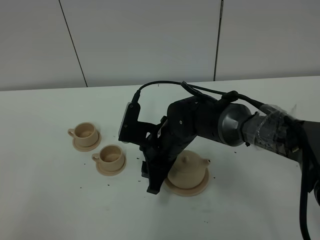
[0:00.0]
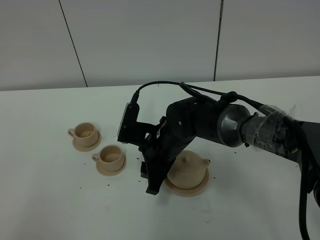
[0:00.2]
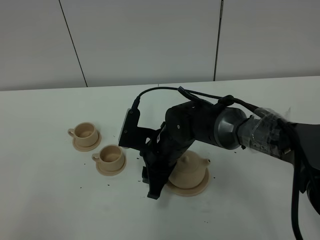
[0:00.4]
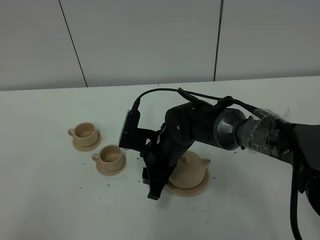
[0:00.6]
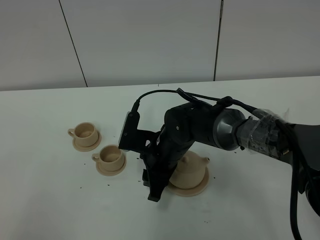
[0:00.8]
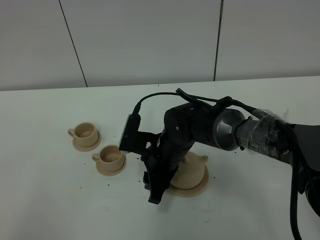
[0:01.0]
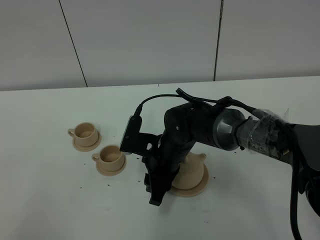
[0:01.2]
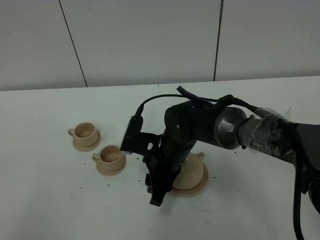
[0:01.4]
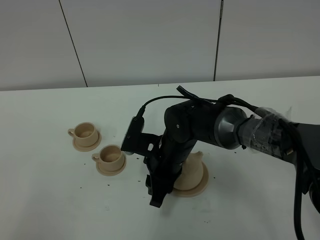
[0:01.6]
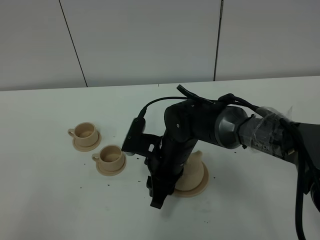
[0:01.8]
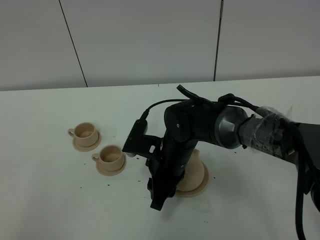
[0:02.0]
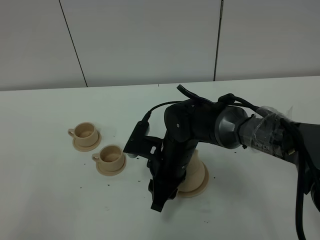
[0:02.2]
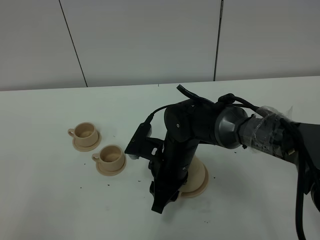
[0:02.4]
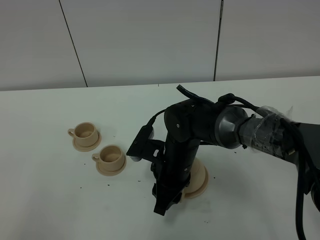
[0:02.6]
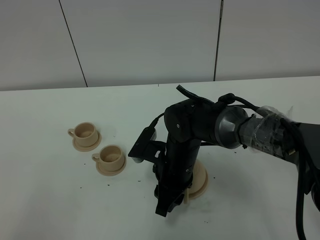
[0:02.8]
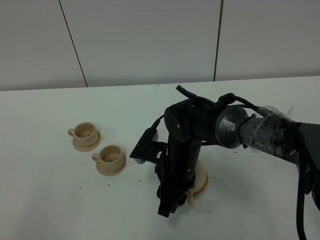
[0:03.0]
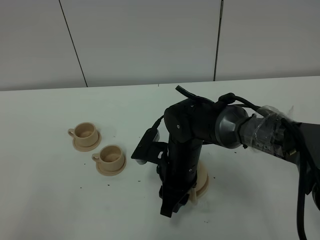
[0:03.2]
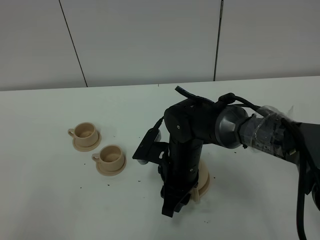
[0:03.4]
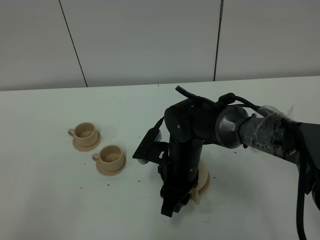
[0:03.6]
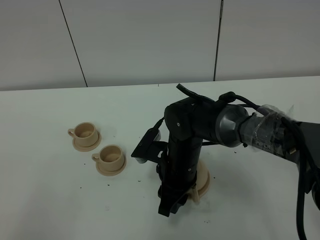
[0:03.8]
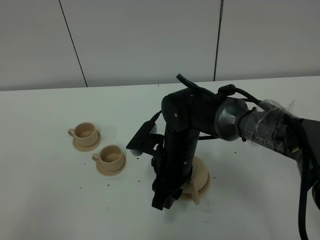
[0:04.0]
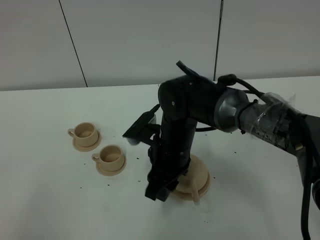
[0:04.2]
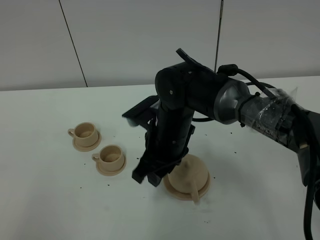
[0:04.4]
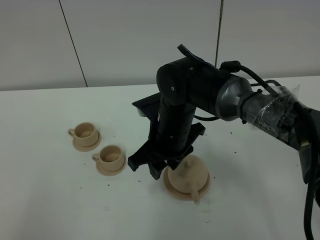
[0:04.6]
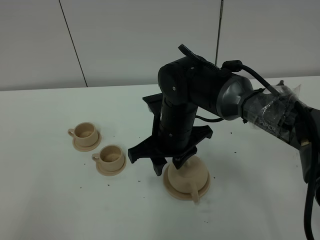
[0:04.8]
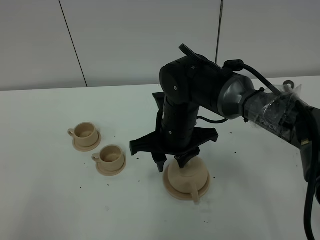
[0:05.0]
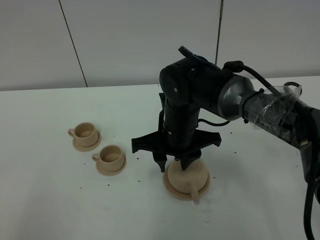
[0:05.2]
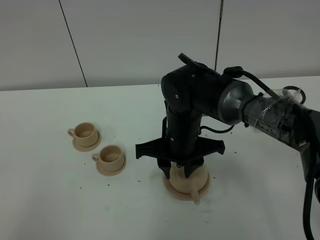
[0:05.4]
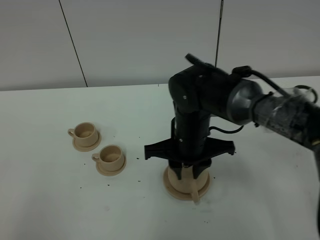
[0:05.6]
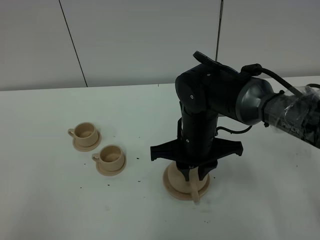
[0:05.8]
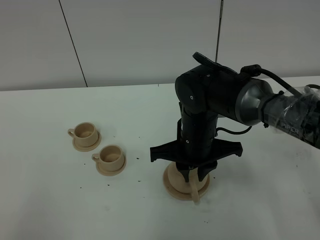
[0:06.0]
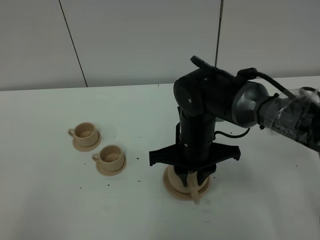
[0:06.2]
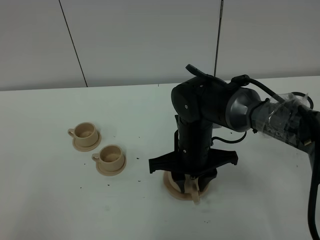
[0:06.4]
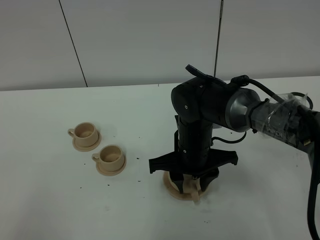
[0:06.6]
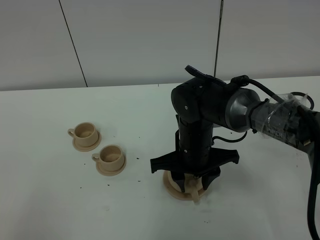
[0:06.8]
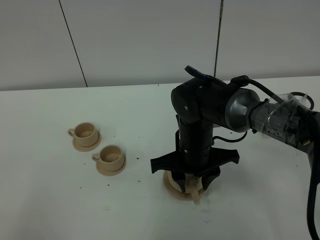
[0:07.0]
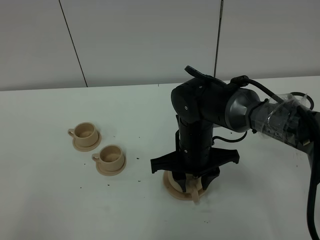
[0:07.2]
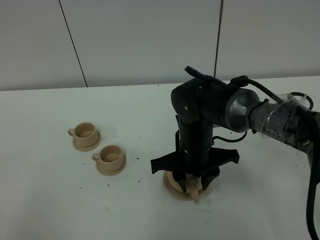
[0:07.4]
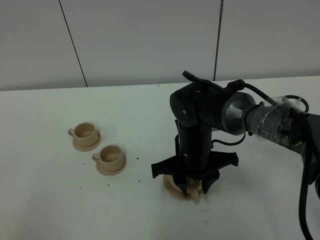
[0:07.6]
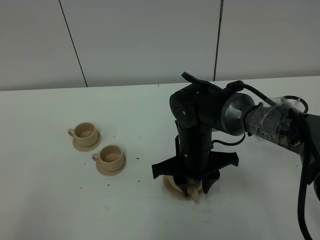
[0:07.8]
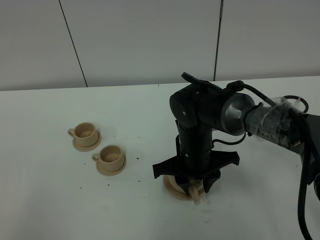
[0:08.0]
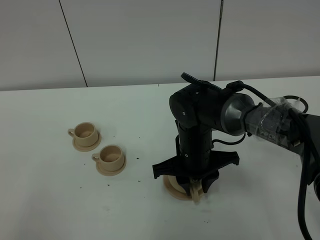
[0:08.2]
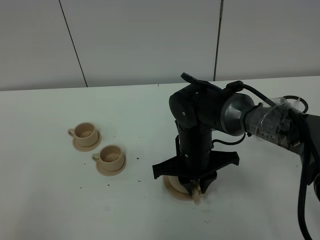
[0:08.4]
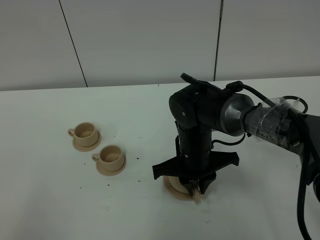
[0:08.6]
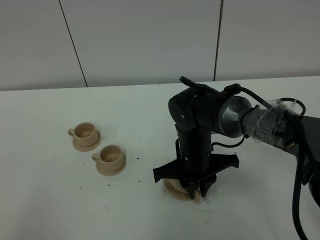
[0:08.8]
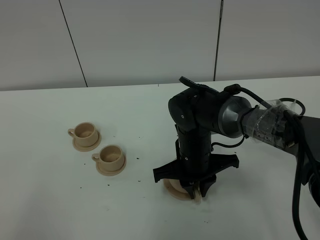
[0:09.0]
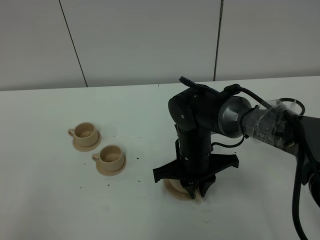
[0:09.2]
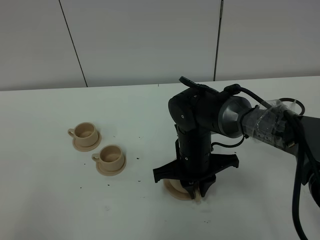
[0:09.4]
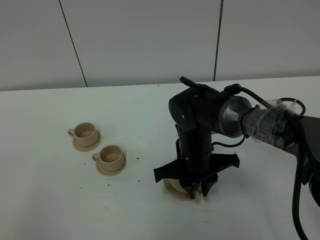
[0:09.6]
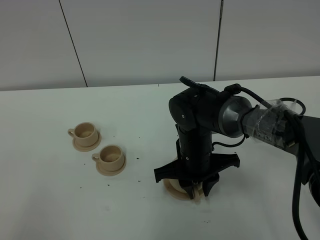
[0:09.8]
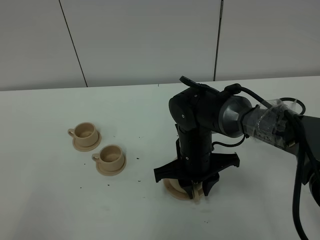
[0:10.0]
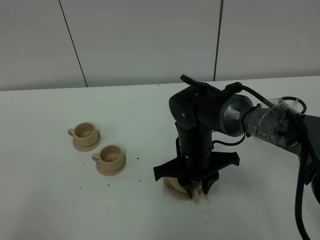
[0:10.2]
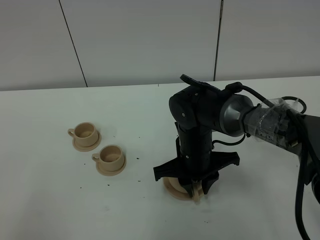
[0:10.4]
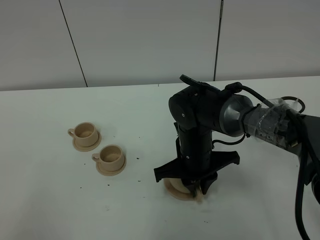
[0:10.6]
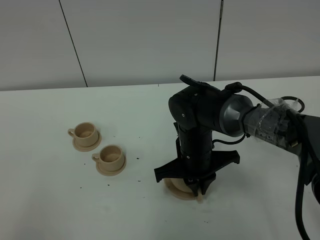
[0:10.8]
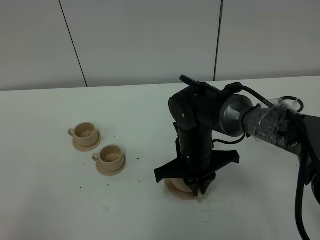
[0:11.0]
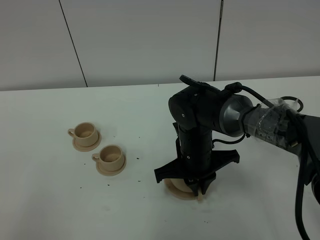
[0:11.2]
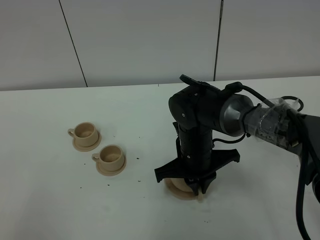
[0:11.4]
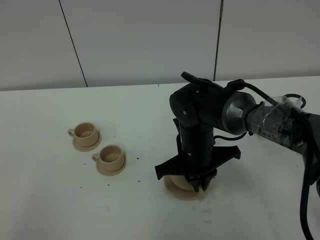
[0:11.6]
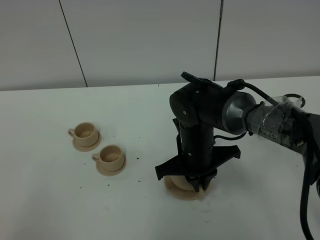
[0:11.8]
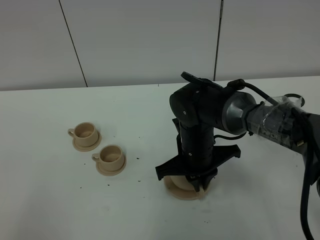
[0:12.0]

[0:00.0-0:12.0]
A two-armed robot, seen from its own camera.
Task of the whole recording: grasp the brown teapot and pour the tea into the two brown teacups one by one, put the brown teapot back in its original place.
0:00.0 to 0:01.6: There are only small adjustments of the grippers.
0:01.6 to 0:03.0: There are only small adjustments of the grippers.
0:03.0 to 0:04.4: The right gripper travels upward by some 5 cm.
0:04.4 to 0:06.0: The right gripper closes.
0:06.0 to 0:07.6: The right gripper opens its fingers.
0:07.6 to 0:09.0: The right gripper closes its fingers.
0:09.0 to 0:10.4: Neither gripper changes place.
0:10.4 to 0:12.0: The right gripper closes.

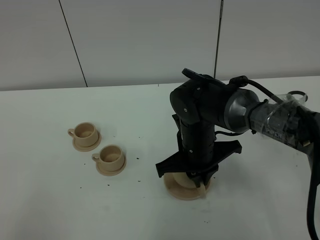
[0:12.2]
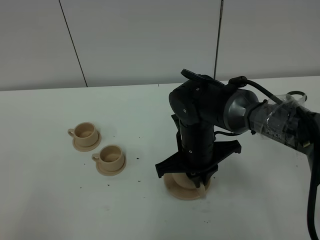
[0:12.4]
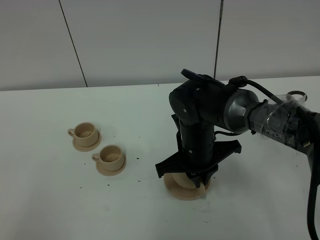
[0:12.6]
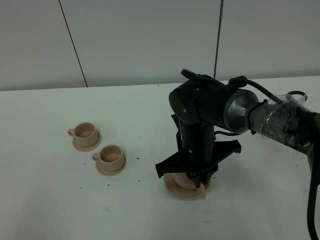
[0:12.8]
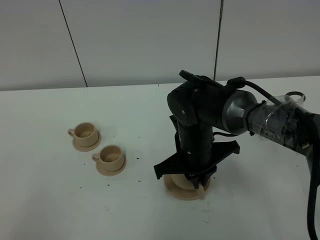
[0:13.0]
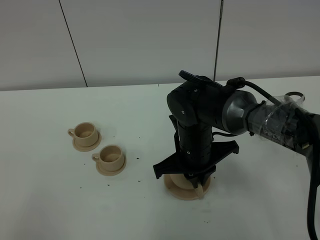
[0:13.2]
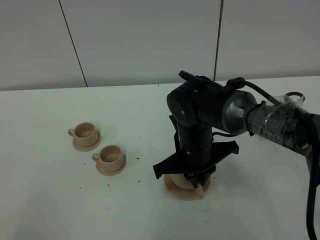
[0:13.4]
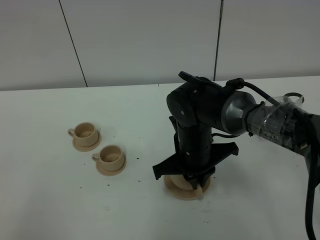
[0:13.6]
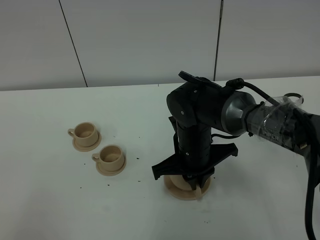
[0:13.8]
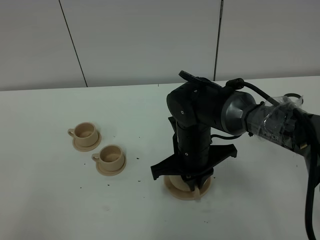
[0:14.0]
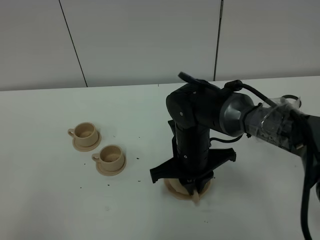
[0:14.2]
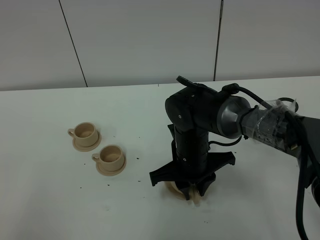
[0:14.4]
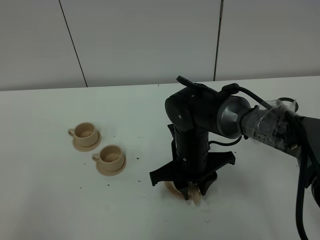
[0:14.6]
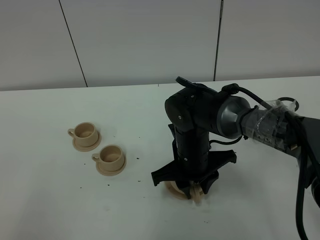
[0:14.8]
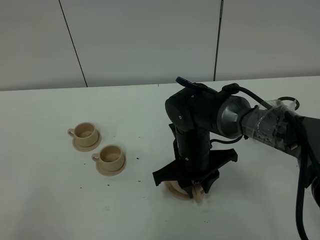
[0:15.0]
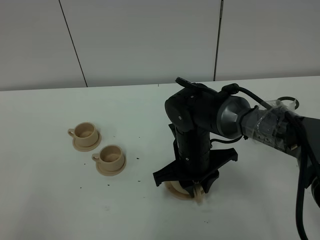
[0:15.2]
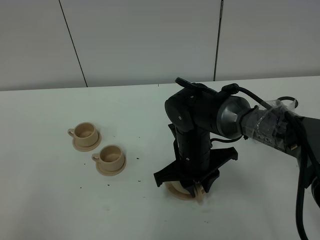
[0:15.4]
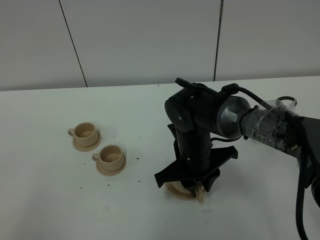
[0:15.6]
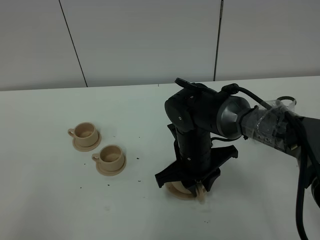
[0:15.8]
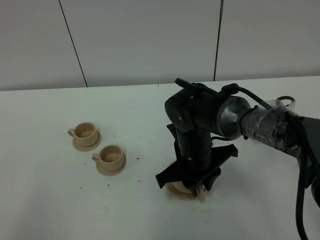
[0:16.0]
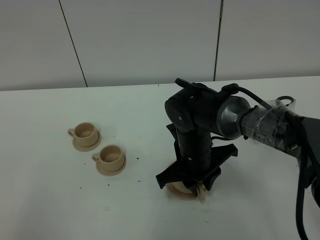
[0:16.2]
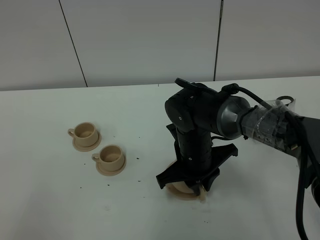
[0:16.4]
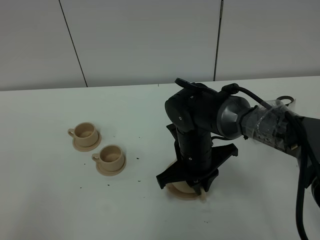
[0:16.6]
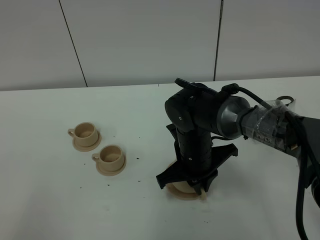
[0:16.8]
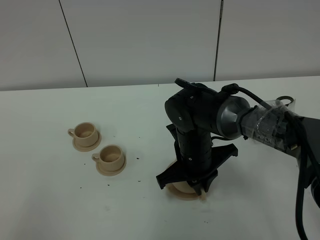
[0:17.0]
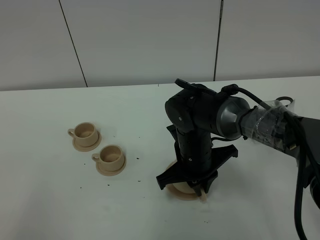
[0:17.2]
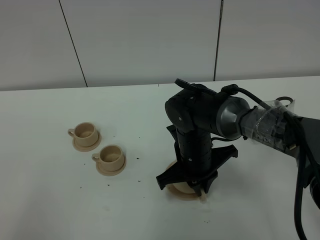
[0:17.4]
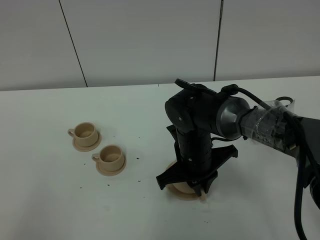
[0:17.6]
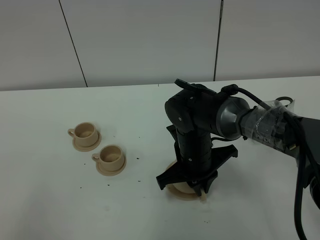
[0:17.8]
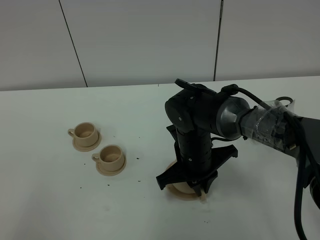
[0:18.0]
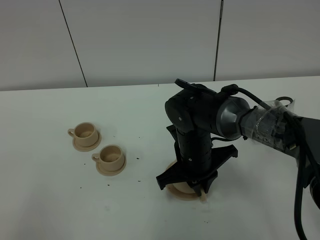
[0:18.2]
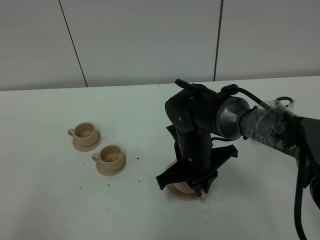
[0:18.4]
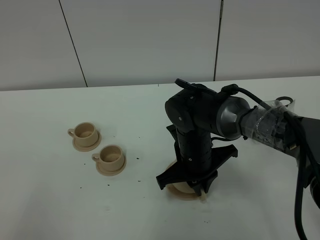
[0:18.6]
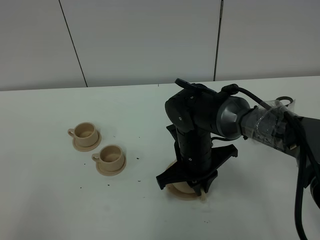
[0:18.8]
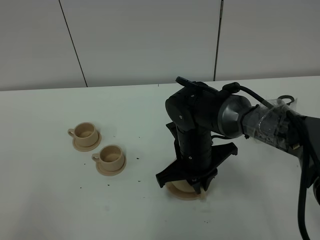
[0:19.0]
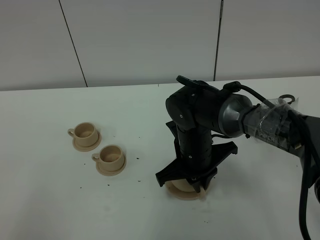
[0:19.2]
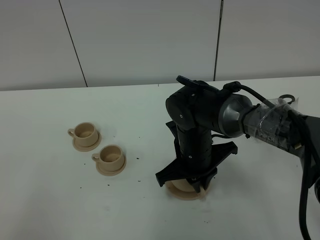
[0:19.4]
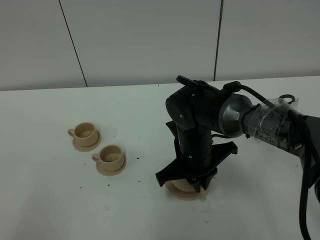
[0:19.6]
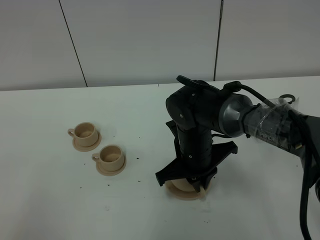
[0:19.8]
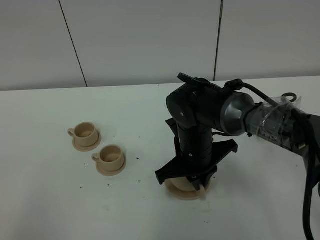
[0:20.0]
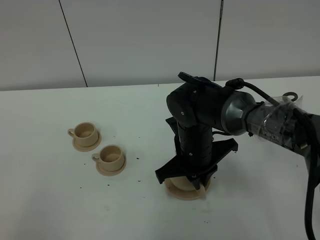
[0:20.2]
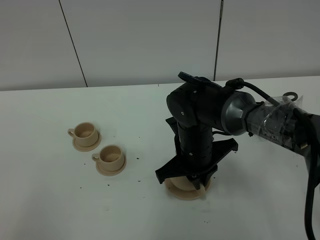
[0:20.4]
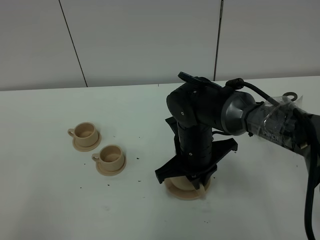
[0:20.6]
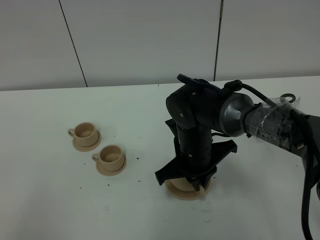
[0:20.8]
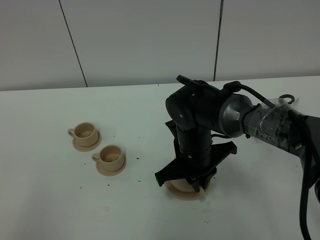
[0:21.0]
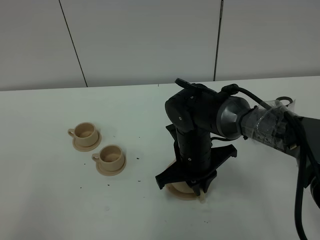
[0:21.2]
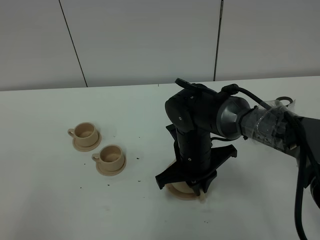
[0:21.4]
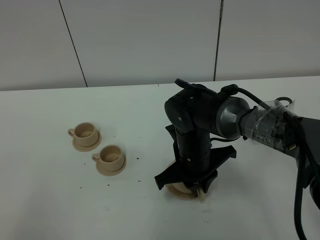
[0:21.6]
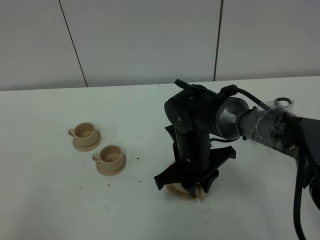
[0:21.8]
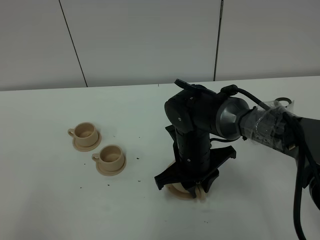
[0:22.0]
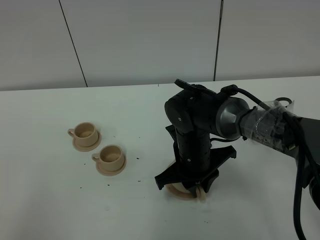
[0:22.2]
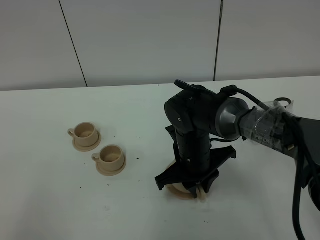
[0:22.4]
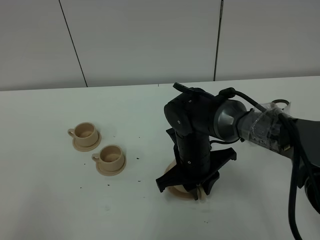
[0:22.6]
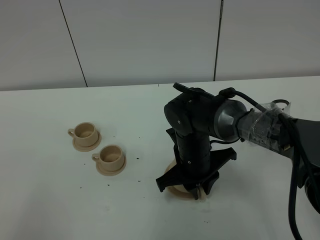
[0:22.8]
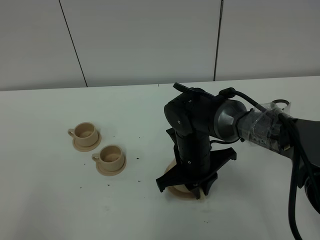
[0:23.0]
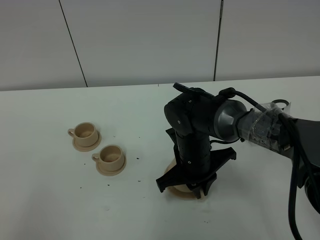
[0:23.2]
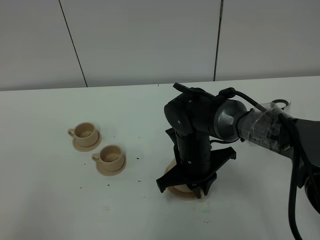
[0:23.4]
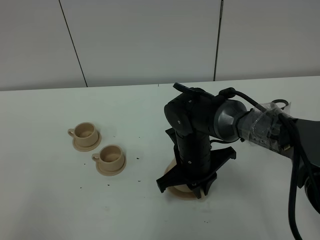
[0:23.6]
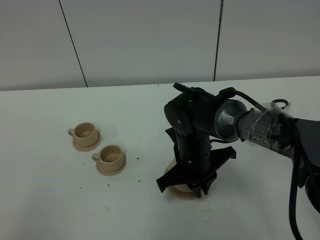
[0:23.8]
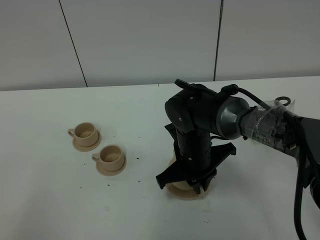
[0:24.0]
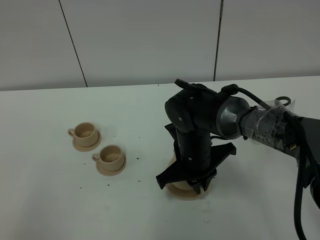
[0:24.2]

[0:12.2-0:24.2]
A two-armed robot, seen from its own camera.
Task of the whole recording: grasp the brown teapot and pour the tea into the two brown teacups one by one, put the brown teapot back in its original place.
0:12.2 to 0:13.8: Both grippers stay put.
0:13.8 to 0:15.2: The right gripper opens.
0:15.2 to 0:16.6: The right gripper closes its fingers.
0:16.6 to 0:21.2: Both grippers stay put.
0:21.2 to 0:22.6: The right gripper opens.
0:22.6 to 0:24.2: The right gripper closes its fingers.
